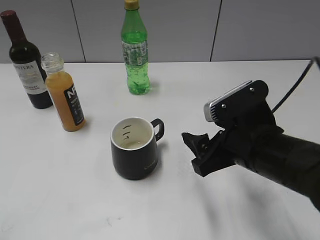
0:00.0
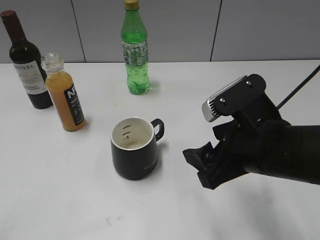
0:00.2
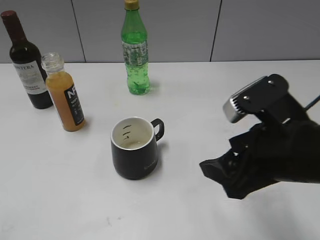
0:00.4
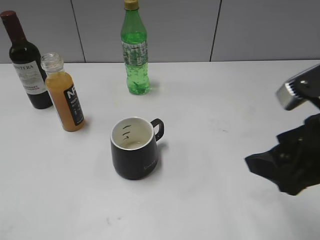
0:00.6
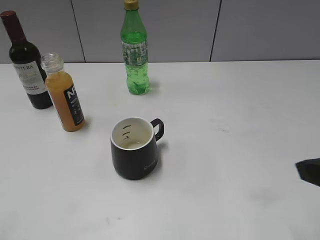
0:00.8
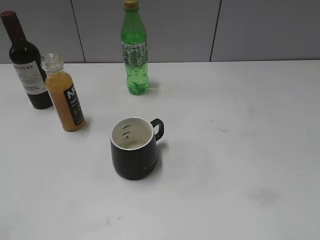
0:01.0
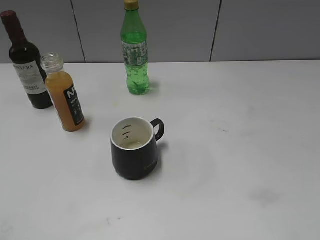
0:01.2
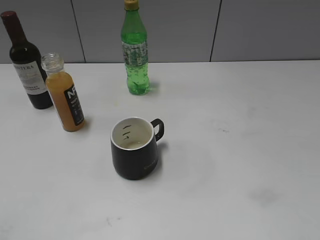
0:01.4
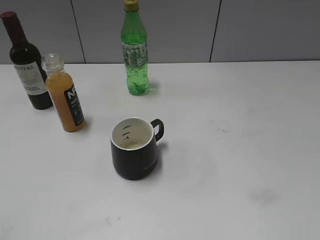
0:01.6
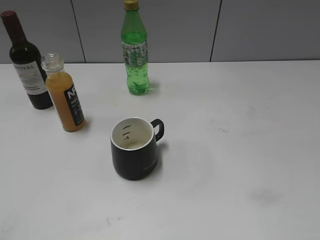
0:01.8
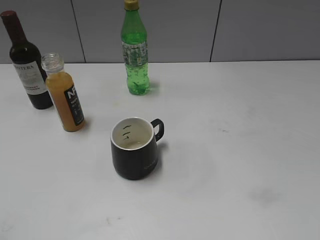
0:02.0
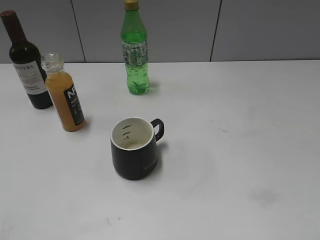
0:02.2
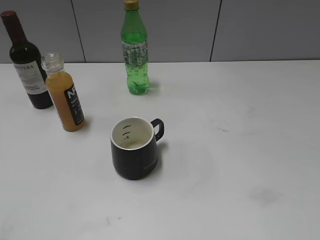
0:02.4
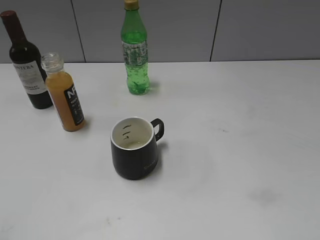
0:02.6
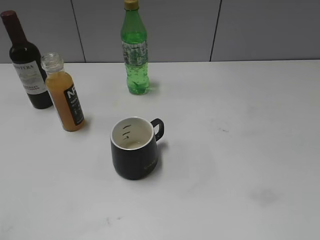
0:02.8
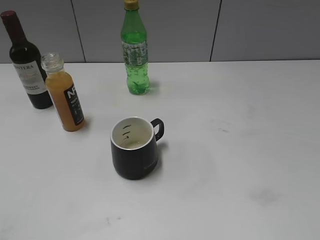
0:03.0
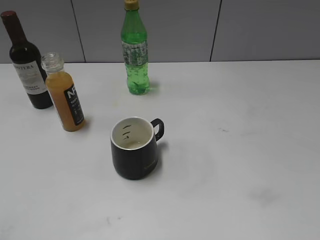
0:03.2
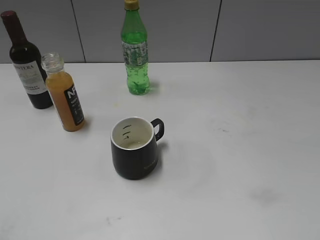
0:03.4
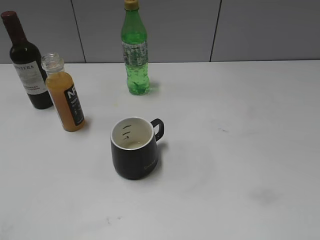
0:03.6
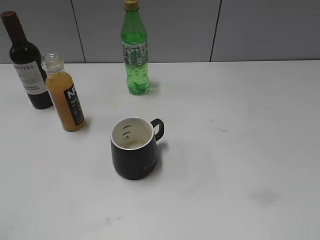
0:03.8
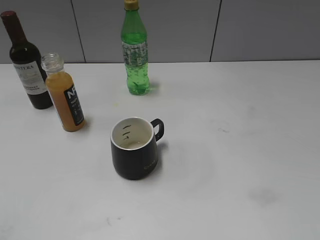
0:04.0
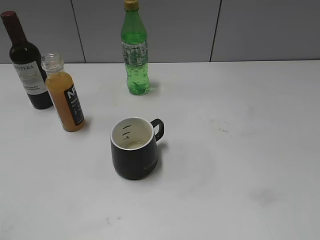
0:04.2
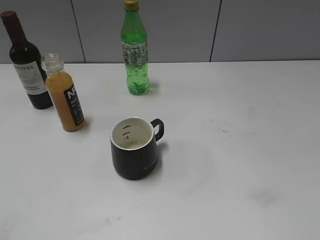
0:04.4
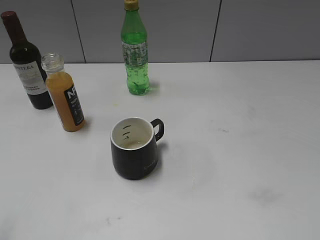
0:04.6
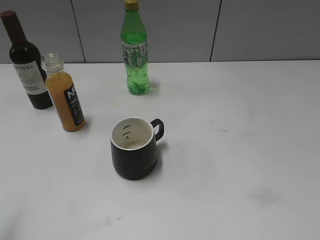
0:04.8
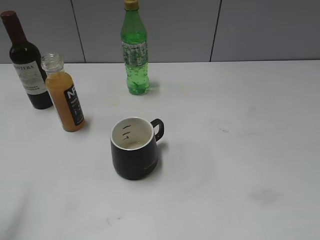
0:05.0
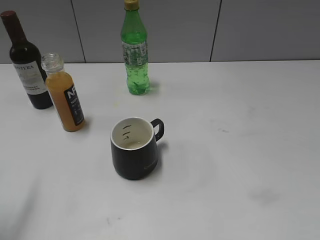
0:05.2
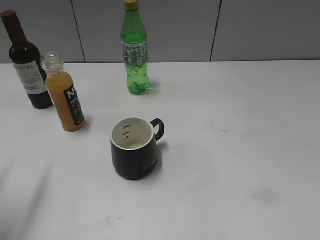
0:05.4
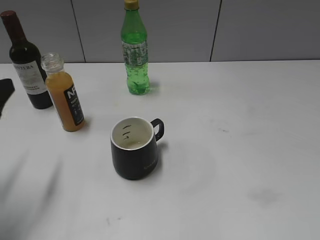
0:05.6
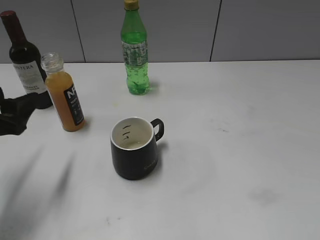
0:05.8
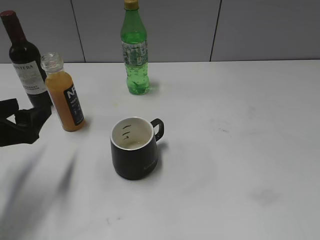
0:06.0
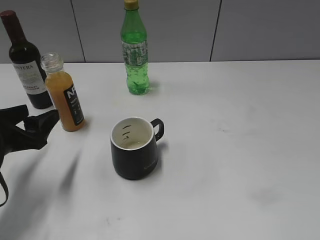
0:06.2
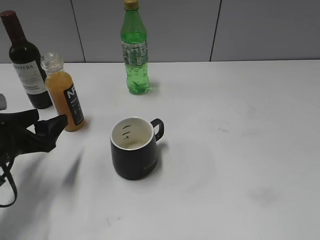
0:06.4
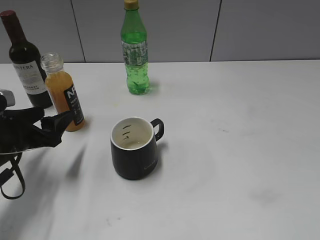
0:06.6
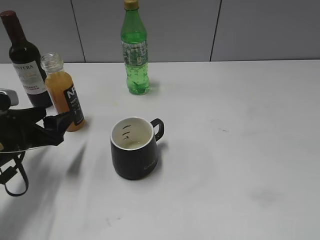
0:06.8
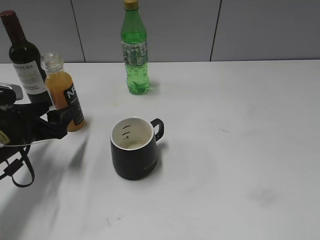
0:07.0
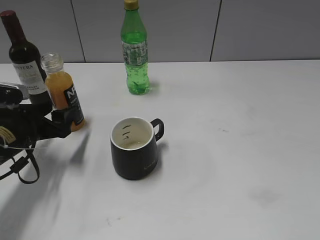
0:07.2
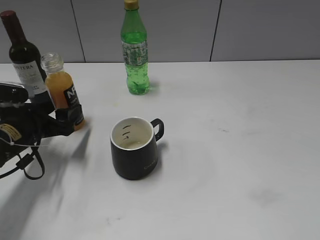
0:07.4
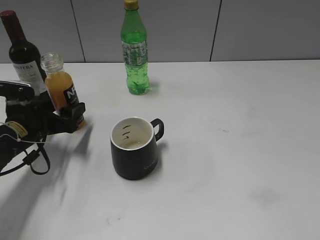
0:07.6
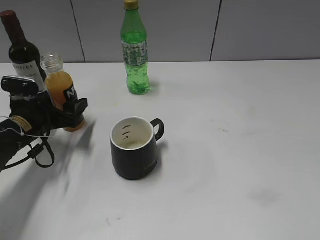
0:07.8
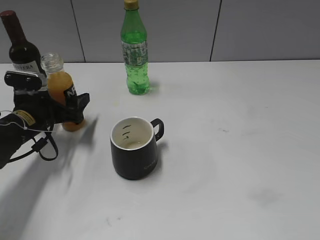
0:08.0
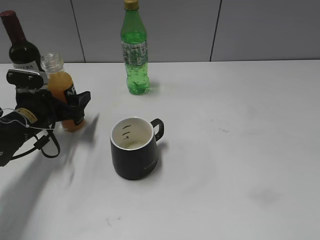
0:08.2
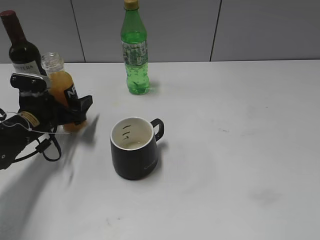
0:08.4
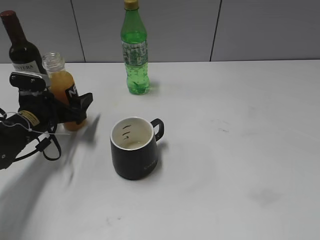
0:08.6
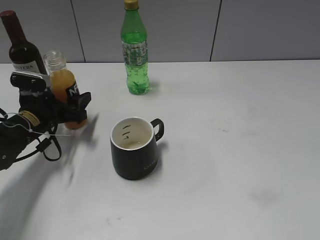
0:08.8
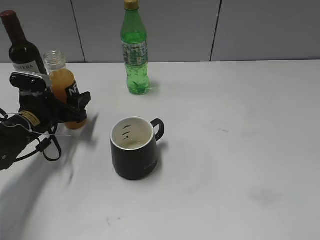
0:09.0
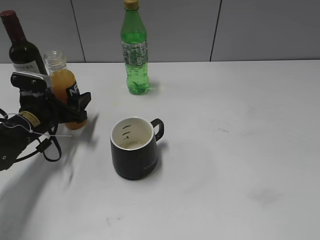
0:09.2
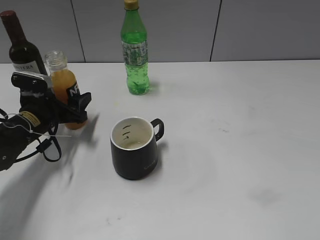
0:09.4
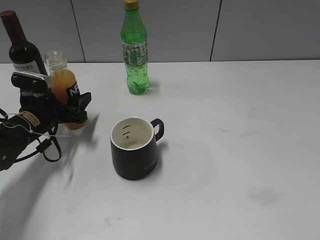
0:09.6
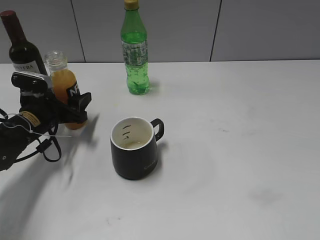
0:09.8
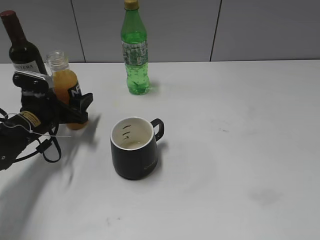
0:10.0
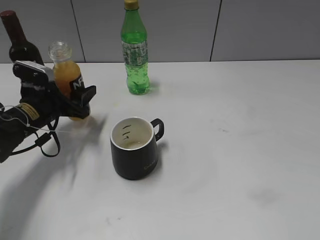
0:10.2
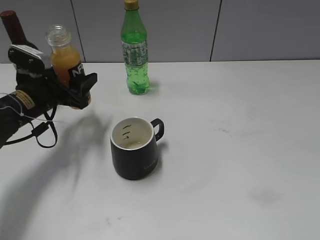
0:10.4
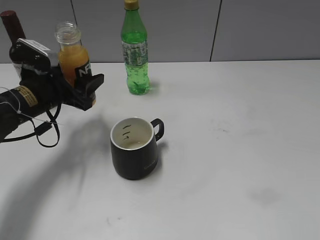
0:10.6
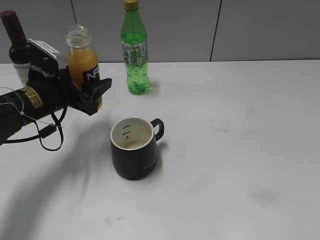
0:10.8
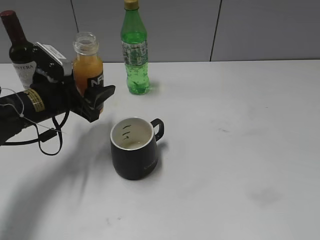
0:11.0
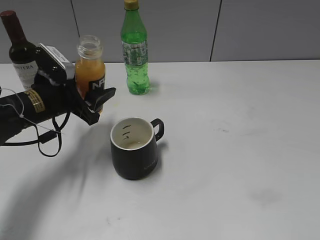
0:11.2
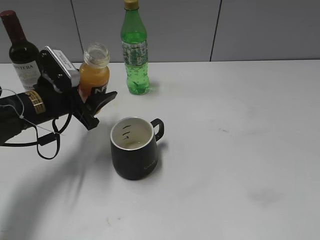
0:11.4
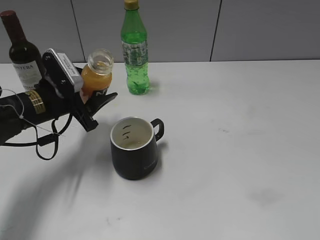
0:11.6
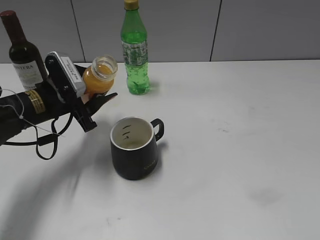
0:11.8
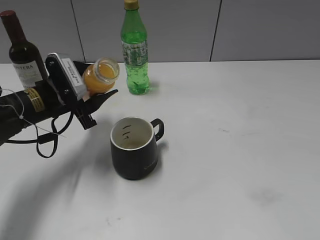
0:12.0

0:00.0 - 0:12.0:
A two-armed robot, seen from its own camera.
Step, 0:00.0 - 0:09.8: Grasp the bottle with orange juice with left gripper.
0:00.0 - 0:01.6: The right gripper shifts roughly 25 cm backward, to the right and upward.
0:01.6 - 0:03.0: Both grippers stay put.
0:04.4 - 0:06.0: The left gripper heads forward and downward, covering approximately 25 cm.
0:06.0 - 0:07.6: The left gripper moves forward and downward, some 10 cm.
0:07.6 - 0:09.0: The grippers move only a little.
0:09.0 - 0:10.4: The left gripper is displaced upward by roughly 5 cm.

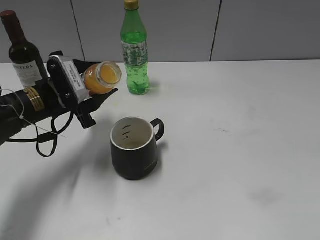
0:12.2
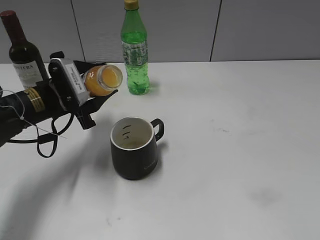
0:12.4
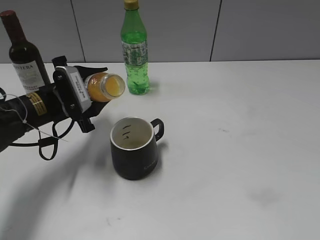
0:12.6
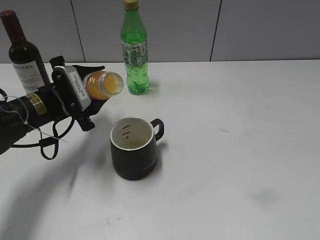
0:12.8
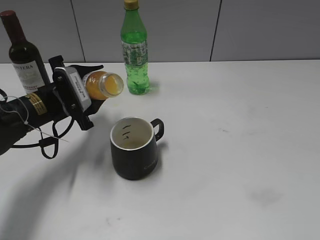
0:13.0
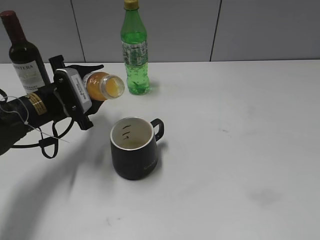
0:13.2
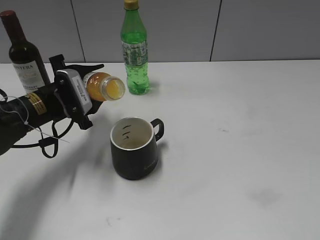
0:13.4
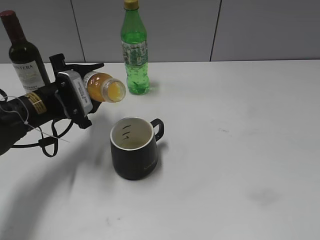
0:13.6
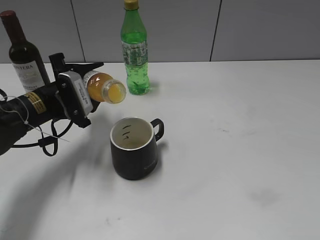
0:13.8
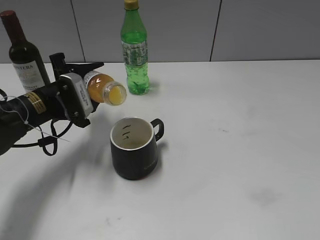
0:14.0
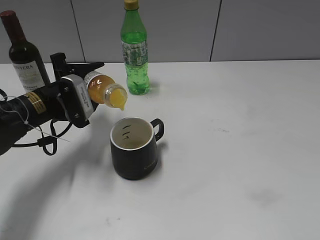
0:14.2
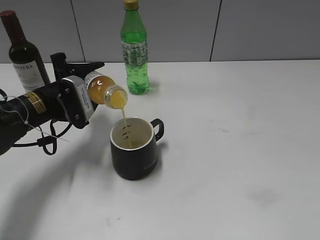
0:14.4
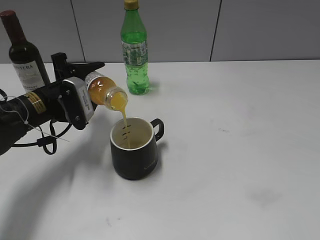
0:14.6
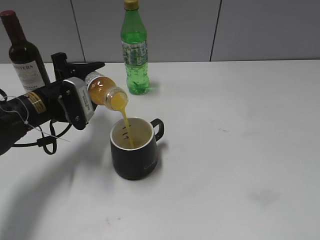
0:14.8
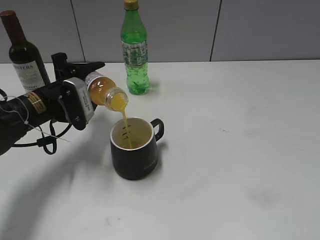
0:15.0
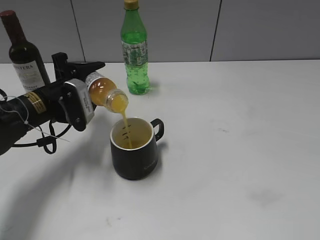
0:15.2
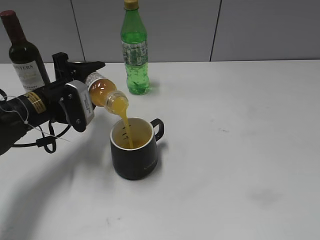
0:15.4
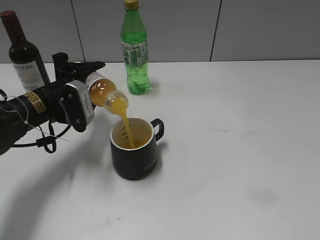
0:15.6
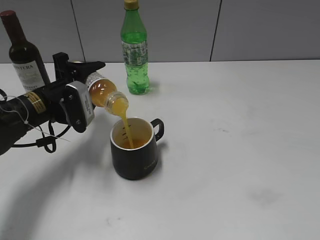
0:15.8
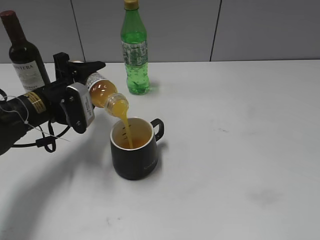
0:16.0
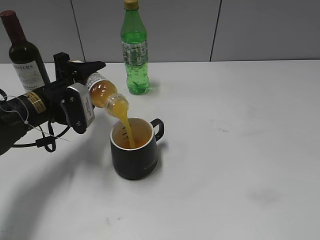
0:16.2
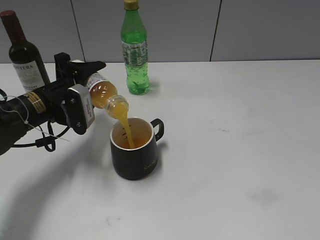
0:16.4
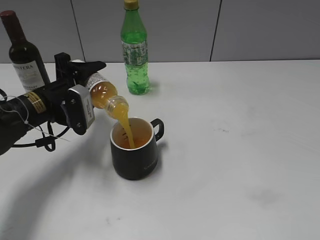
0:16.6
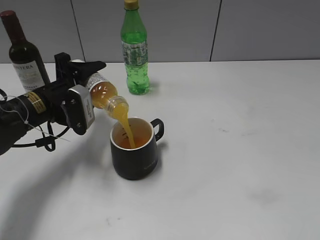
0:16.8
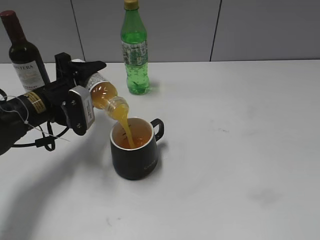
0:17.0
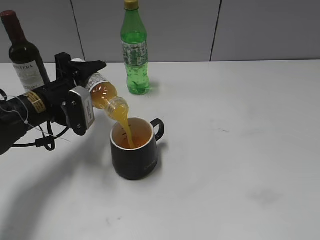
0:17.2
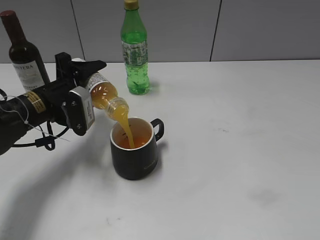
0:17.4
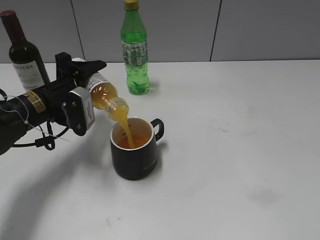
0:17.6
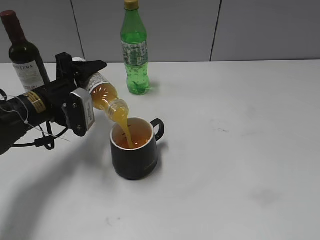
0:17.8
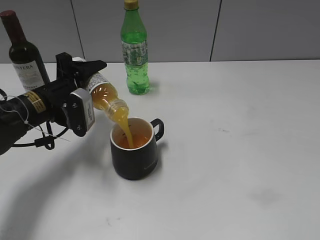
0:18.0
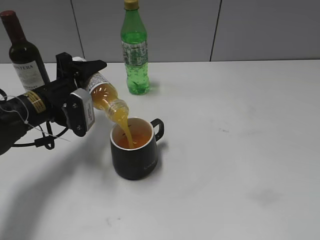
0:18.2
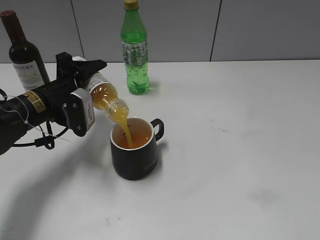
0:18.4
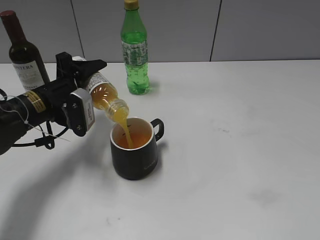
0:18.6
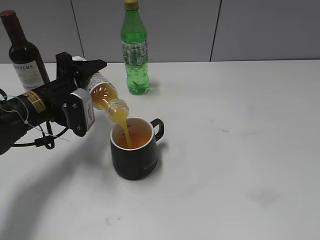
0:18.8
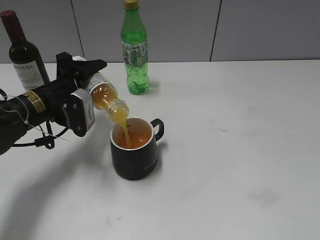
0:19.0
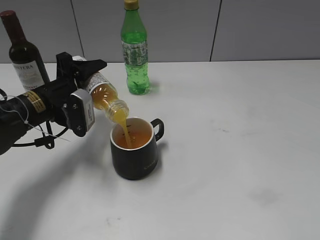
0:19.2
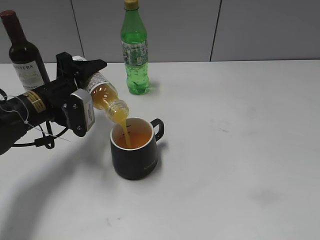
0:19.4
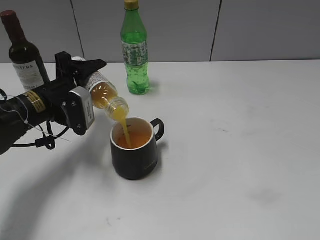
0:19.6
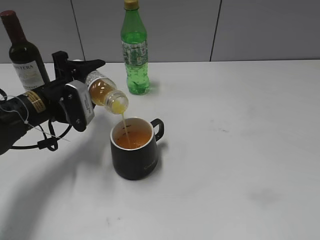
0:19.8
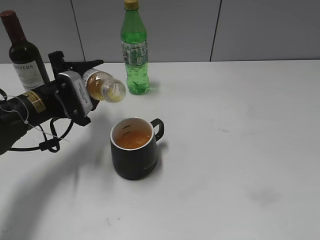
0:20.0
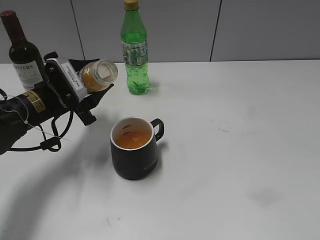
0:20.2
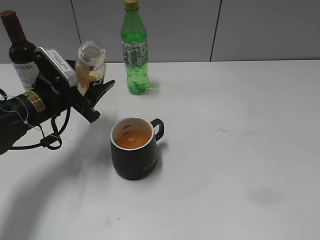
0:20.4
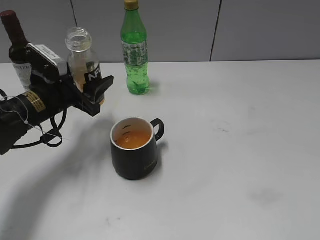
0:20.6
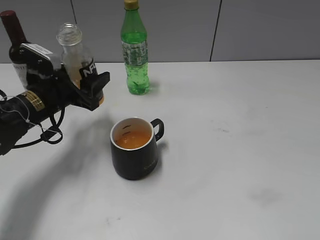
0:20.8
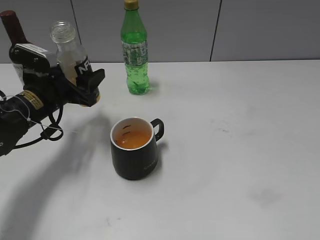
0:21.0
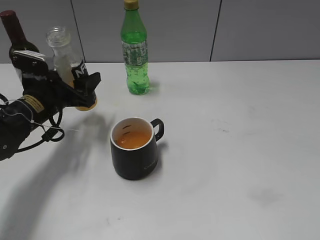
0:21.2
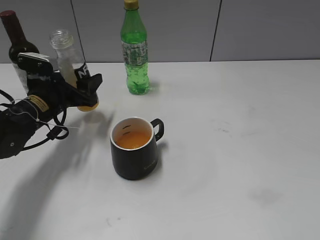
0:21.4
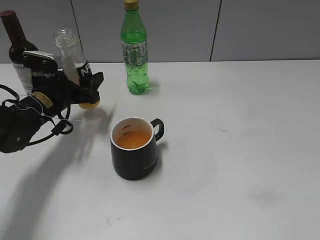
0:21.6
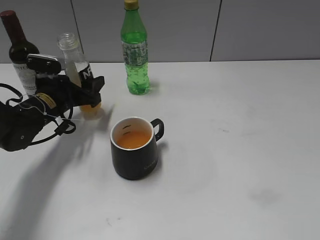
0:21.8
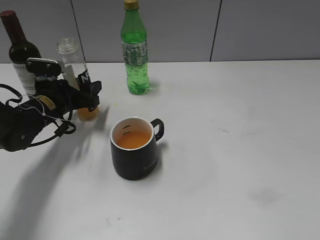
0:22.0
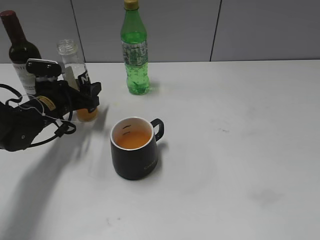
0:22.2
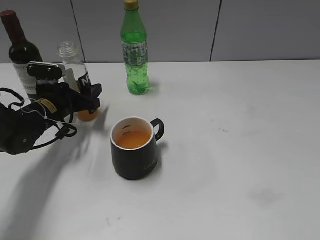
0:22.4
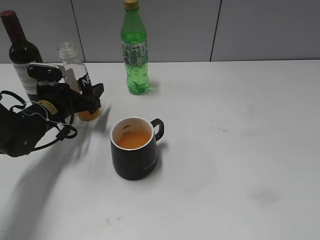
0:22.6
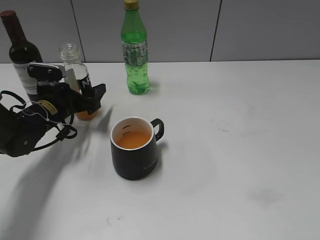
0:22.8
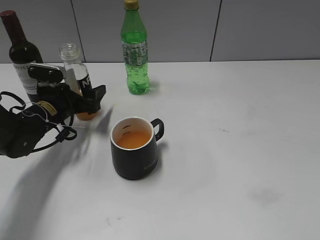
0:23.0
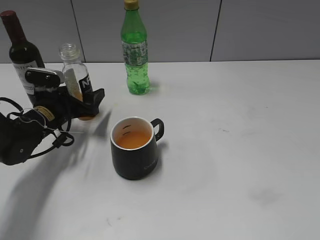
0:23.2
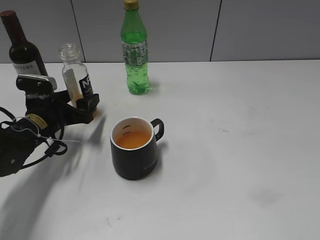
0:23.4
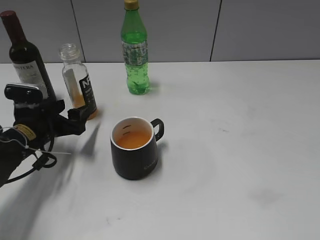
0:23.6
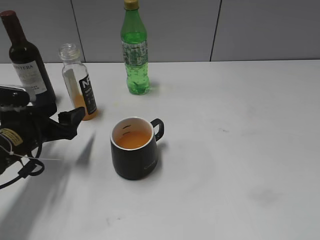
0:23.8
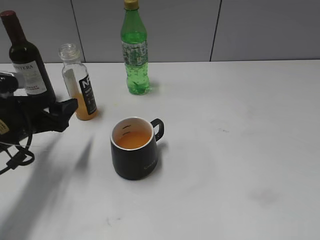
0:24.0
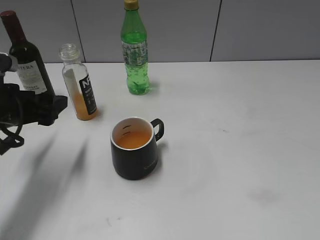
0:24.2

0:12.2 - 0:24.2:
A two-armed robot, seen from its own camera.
Step, 0:12.2 - 0:20.0: Pour the orange juice from bottle to cup with left gripper.
Step, 0:20.2 - 0:23.0: Place the orange juice bottle on the table with left gripper.
0:12.2 - 0:13.8: There are only small adjustments of the grippers.
0:13.8 - 0:16.6: The grippers stay close to where they were, moving slightly.
0:16.6 - 0:19.8: The grippers move only a little.
0:21.2 - 0:22.6: The left gripper ends up approximately 5 cm from where it was.
0:22.6 - 0:24.2: The left gripper goes approximately 15 cm backward and upward.
